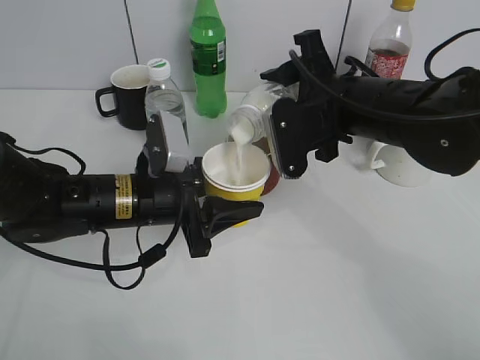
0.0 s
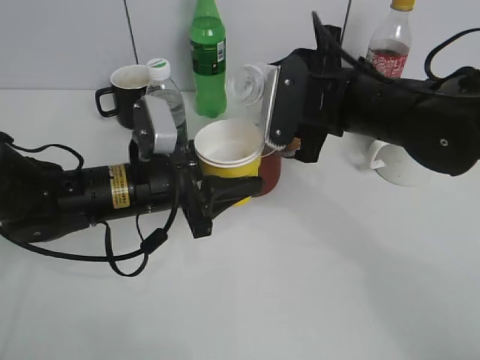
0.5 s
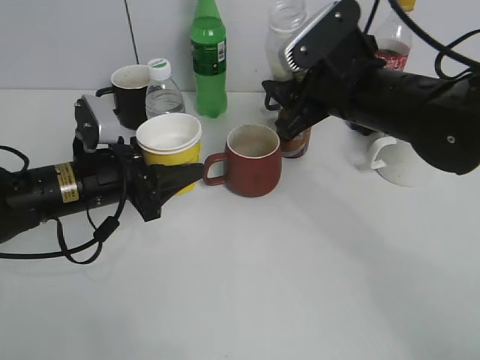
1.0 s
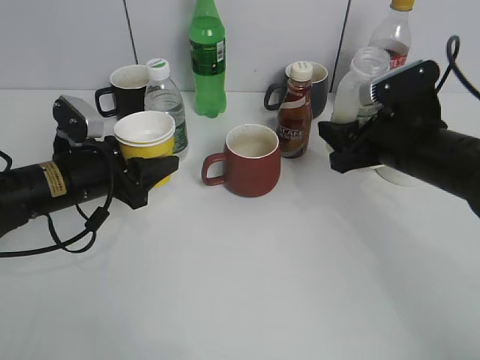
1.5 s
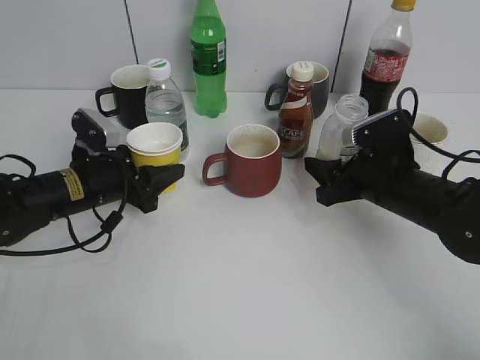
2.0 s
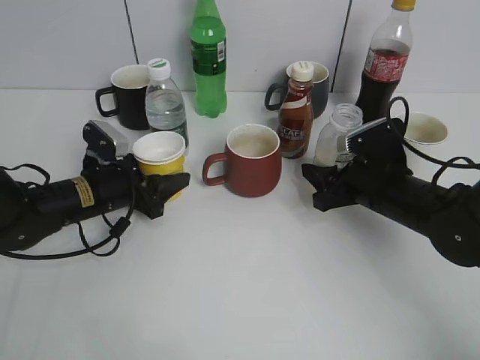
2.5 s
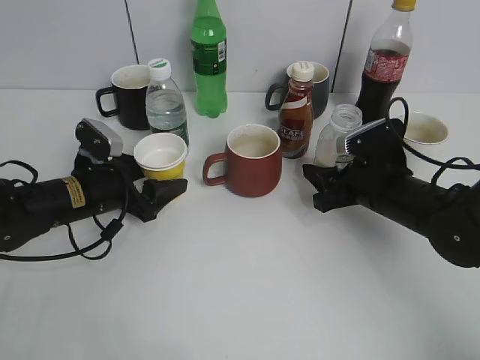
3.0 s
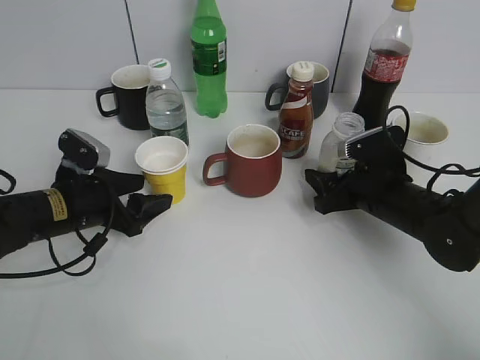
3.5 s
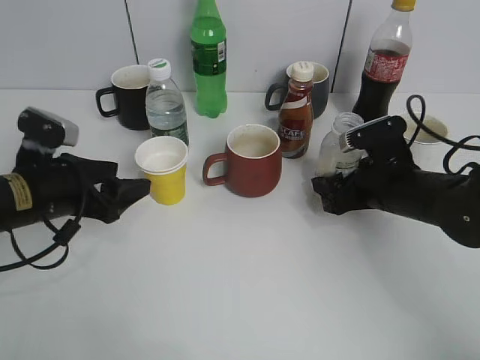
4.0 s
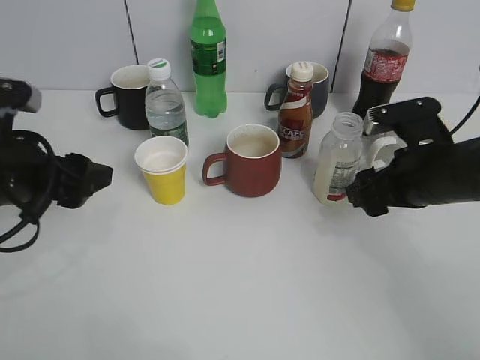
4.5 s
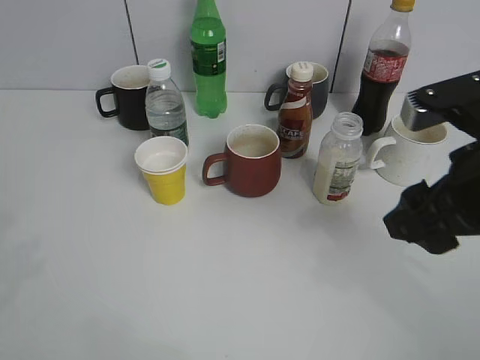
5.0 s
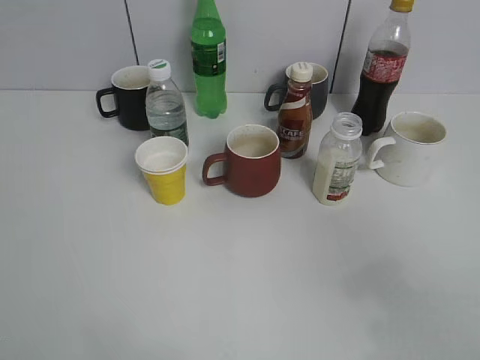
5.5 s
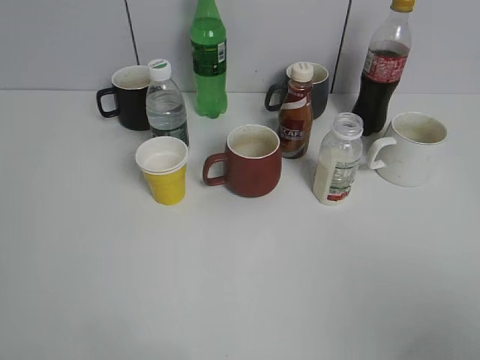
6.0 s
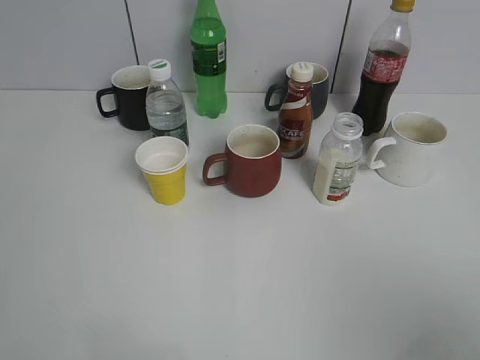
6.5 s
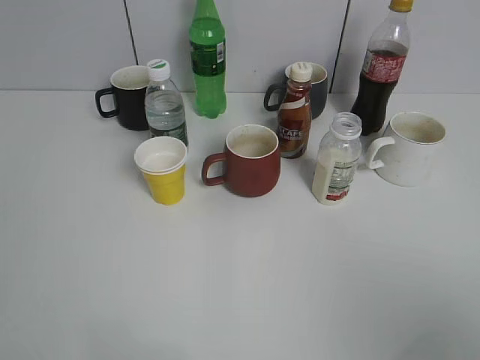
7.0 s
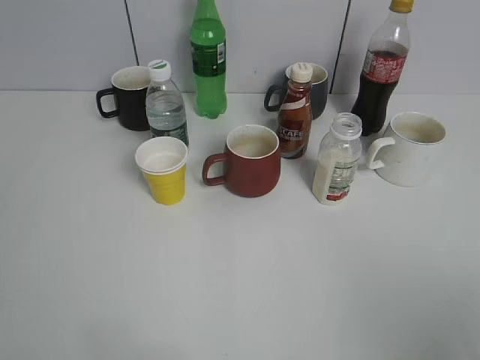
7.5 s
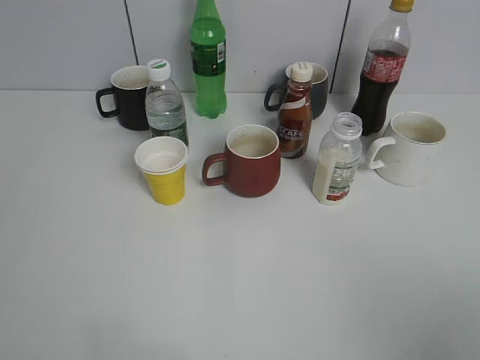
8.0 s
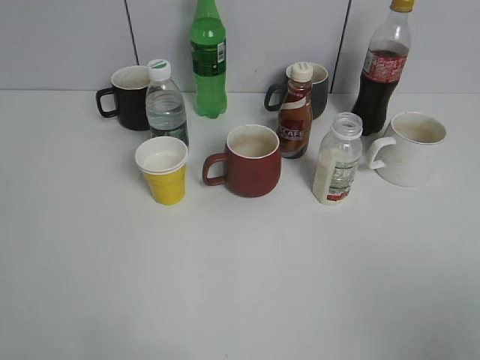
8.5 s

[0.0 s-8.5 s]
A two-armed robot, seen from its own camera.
Step, 1.0 to 4.5 s: Place the yuexian Milk bottle on the table with right gripper.
0.0 to 2.0 s: The left gripper is displaced to the left and forward by roughly 10 cm; the right gripper travels downward and to the right by roughly 15 cm.
2.0 to 4.0 s: The right gripper opens up. The left gripper moves backward, approximately 5 cm, and opens.
4.0 to 6.5 s: Both grippers travel together backward and upward, approximately 35 cm.

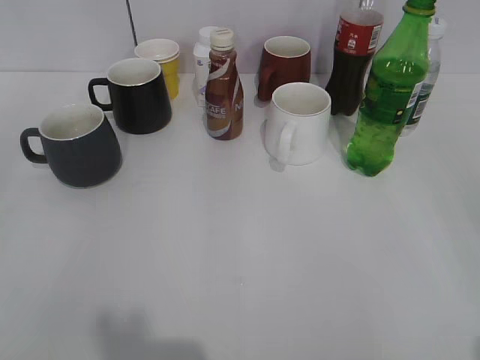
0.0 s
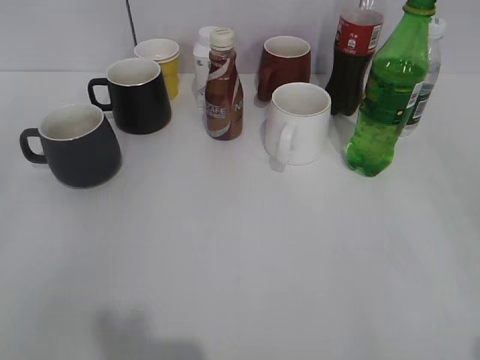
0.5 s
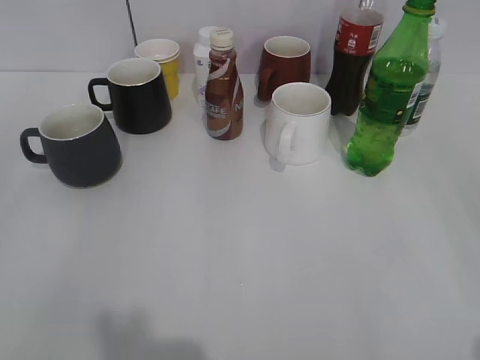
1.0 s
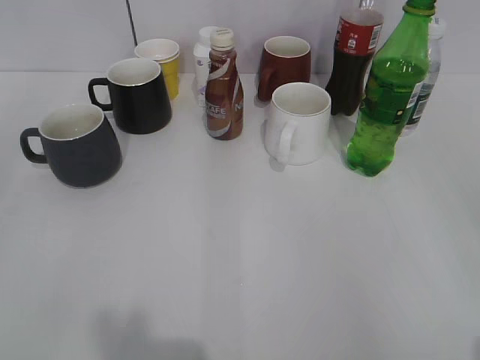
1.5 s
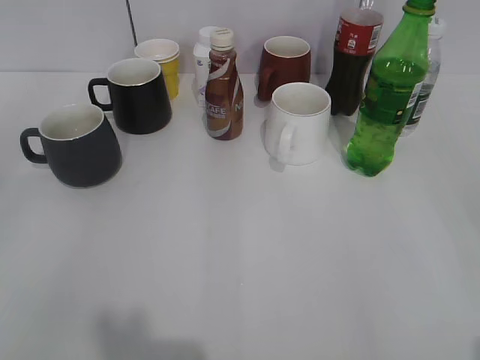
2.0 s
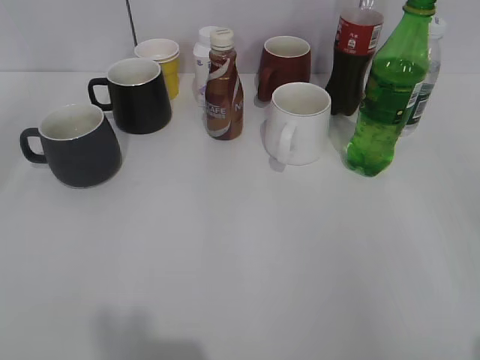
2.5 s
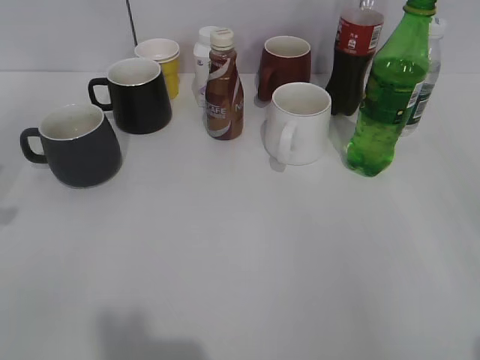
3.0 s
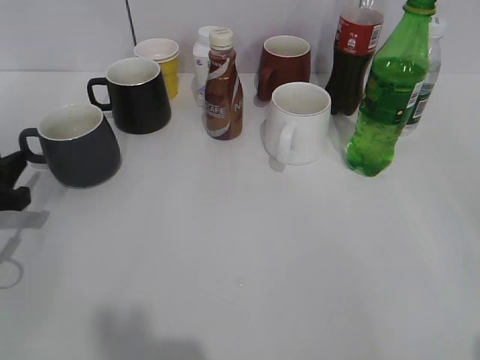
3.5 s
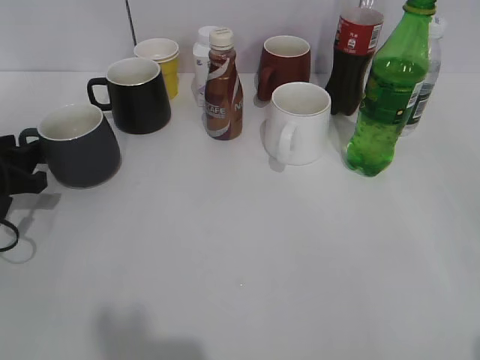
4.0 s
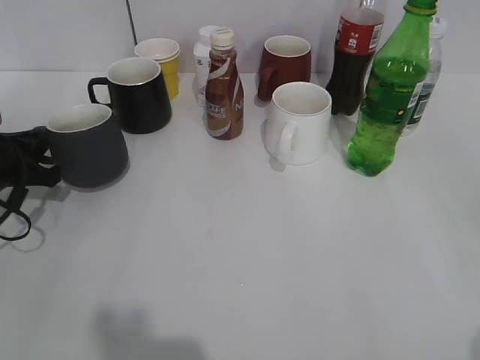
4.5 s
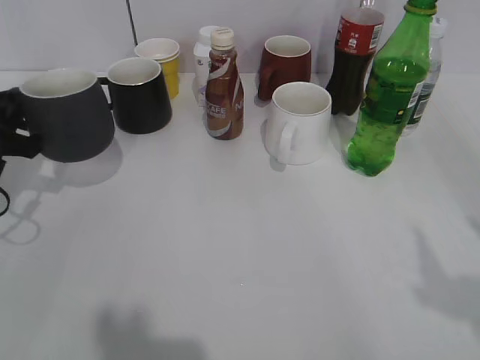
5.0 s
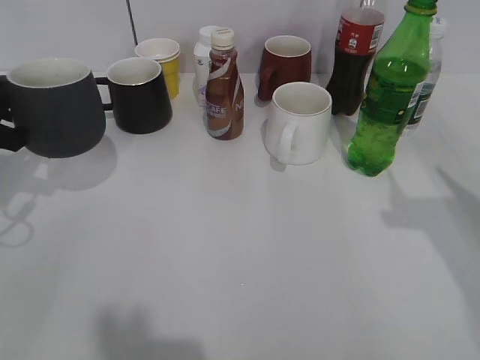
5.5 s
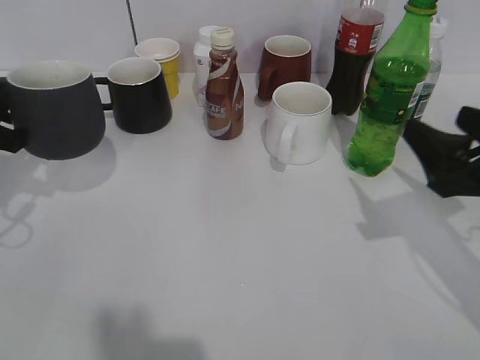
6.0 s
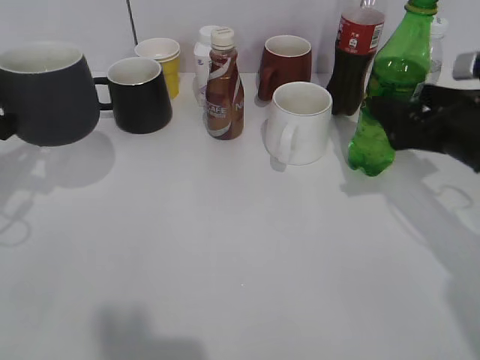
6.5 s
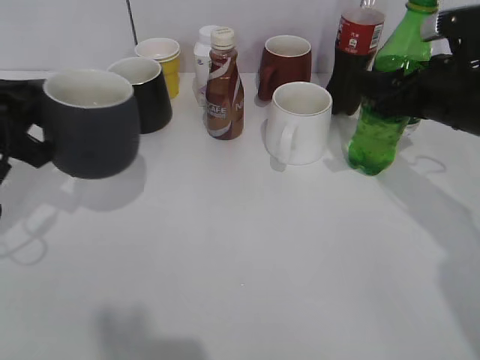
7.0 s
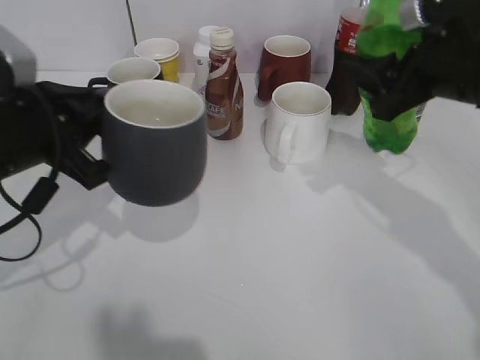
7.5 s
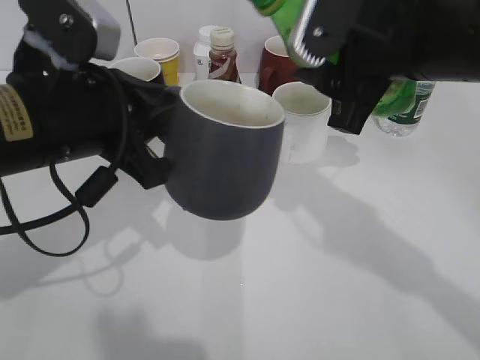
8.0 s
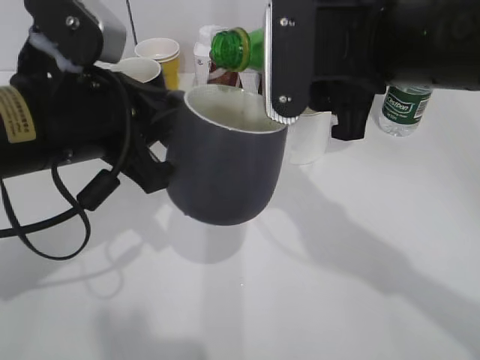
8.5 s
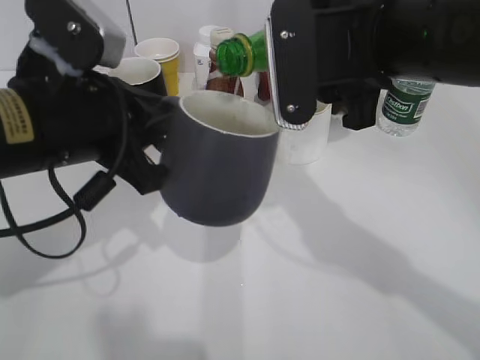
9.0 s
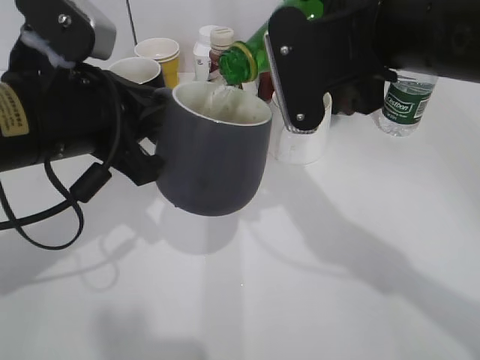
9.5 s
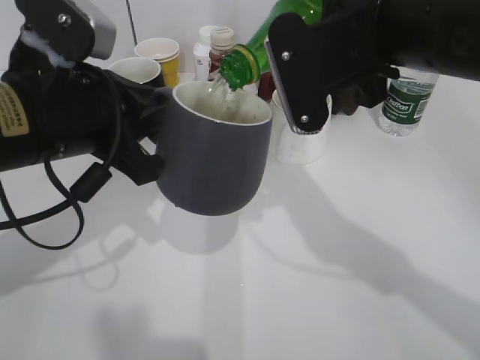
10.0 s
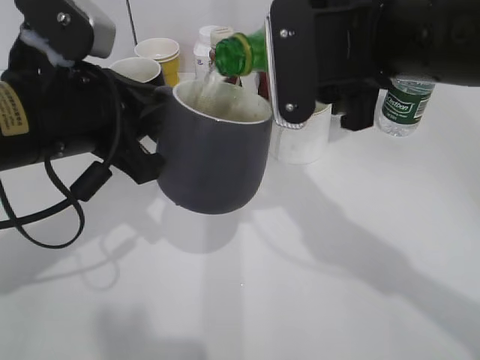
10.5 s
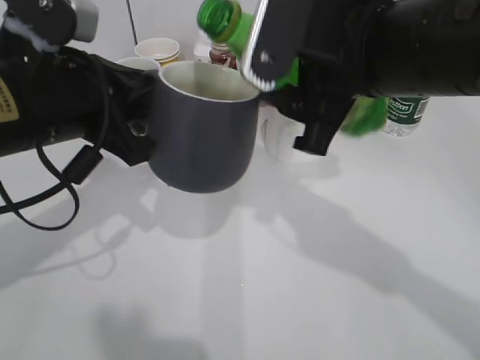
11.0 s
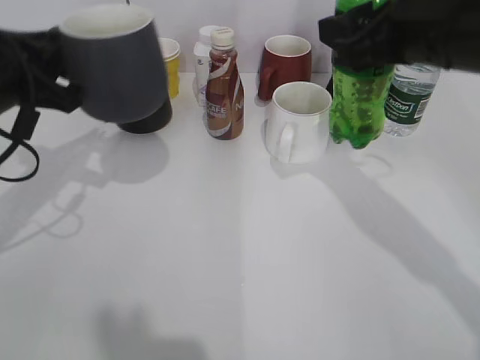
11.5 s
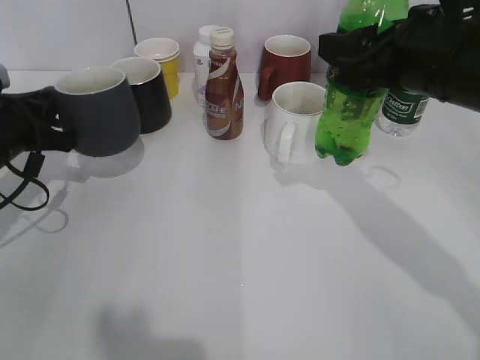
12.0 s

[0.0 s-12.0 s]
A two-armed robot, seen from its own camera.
Step, 2.0 to 4.5 s: Grasp the grey cup with left gripper.
Step, 5.5 to 7.0 s: Grasp the bottle with sprite with right gripper.
Step, 7.5 to 10.5 s: Pour the sprite from bottle to cup with right gripper.
2.0 to 4.0 s: The left gripper is displaced forward and downward by about 30 cm.
4.0 to 6.0 s: The left gripper moves upward, some 5 cm, and closes up; the right gripper travels forward by about 20 cm.
6.0 to 8.0 s: The left gripper travels to the right by roughly 15 cm. The right gripper shifts approximately 15 cm to the left and upward, and closes.
10.0 to 12.0 s: The right gripper moves to the right, some 5 cm, while the left gripper heads to the left, downward and forward, covering about 15 cm.

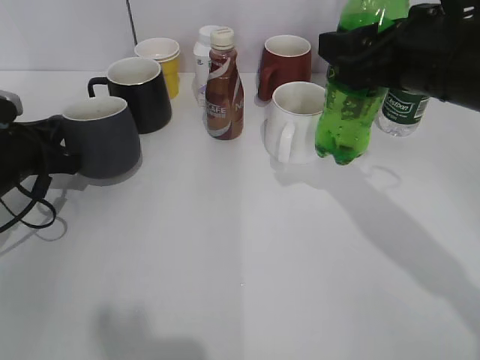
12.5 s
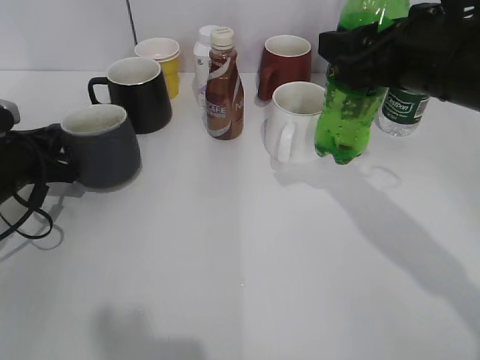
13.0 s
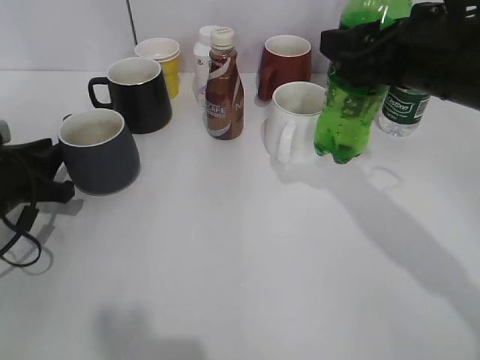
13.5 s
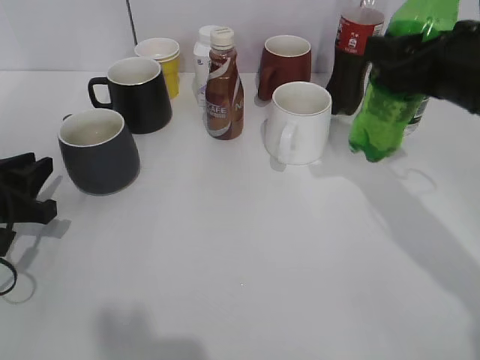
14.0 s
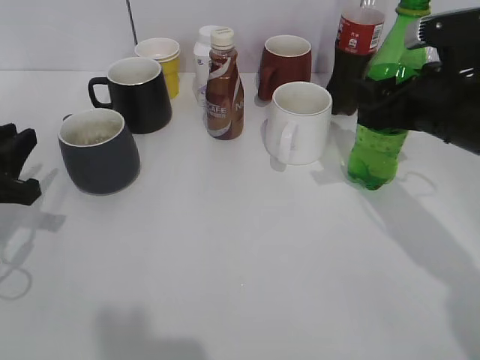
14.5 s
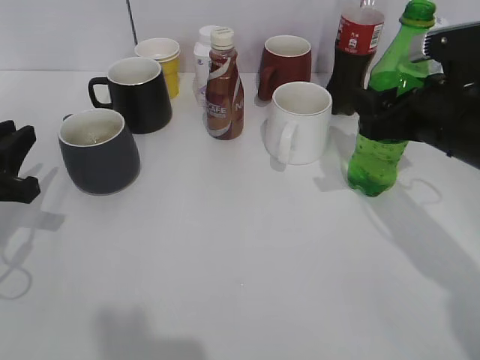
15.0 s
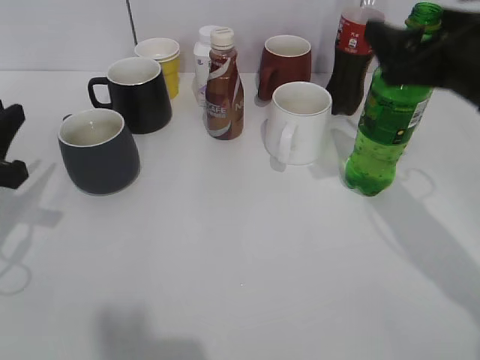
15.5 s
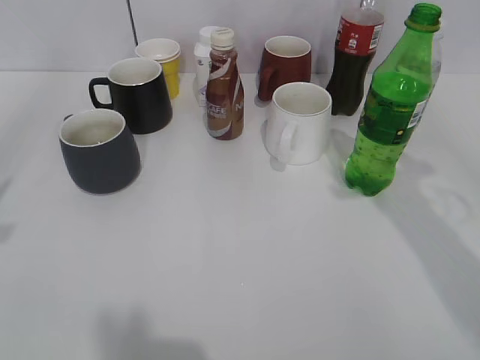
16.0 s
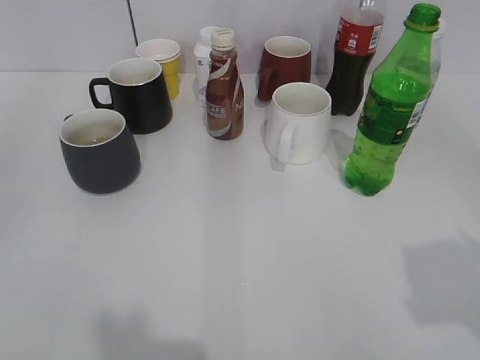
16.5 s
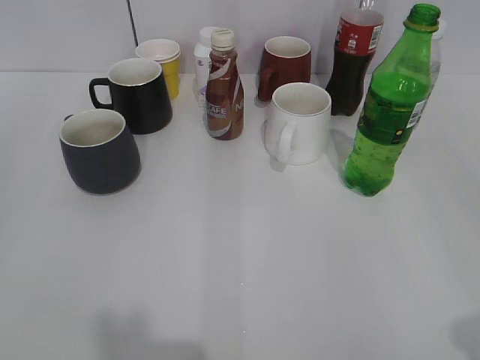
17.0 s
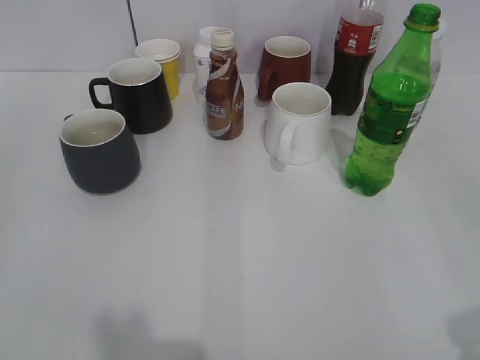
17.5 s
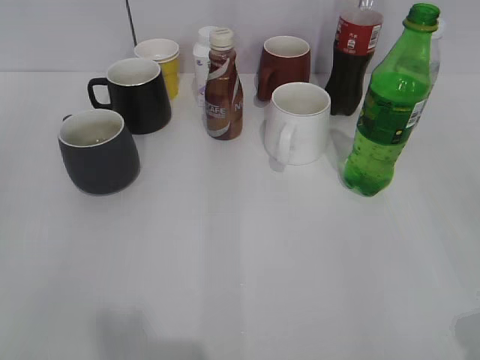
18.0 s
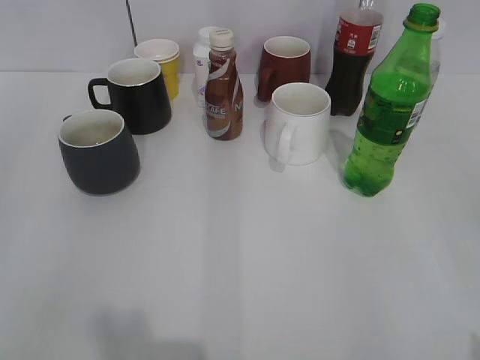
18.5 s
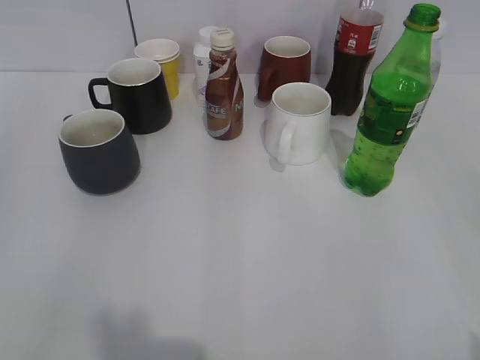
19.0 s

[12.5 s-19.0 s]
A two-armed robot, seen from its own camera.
Step, 13.5 to 15.5 s: Place the sprite bottle on the table with right gripper.
12.5 to 14.5 s: The right gripper travels downward by approximately 5 cm. Meanwhile the left gripper travels backward by approximately 10 cm, and opens.
14.5 to 17.0 s: The left gripper goes roughly 25 cm backward and upward, and opens. Meanwhile the right gripper shifts roughly 30 cm backward, and opens.
